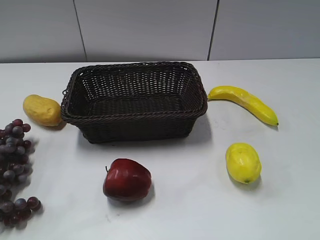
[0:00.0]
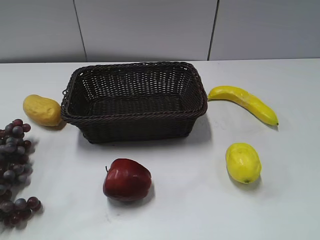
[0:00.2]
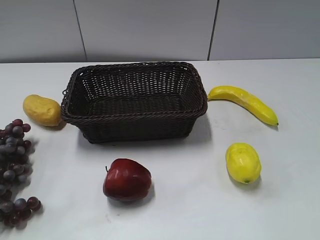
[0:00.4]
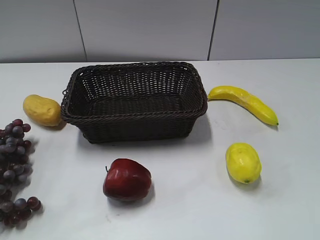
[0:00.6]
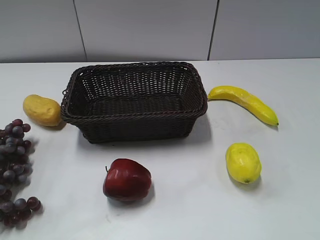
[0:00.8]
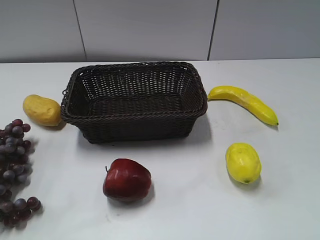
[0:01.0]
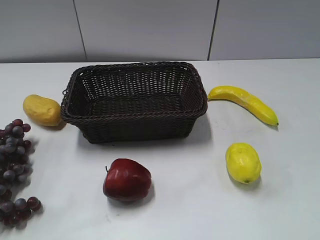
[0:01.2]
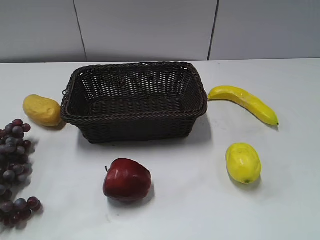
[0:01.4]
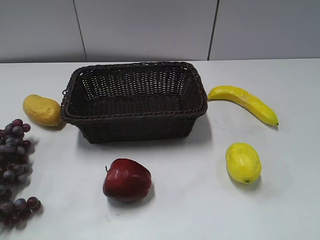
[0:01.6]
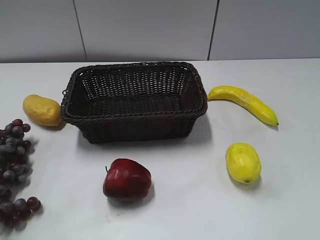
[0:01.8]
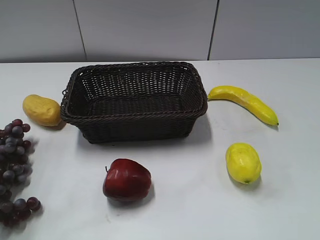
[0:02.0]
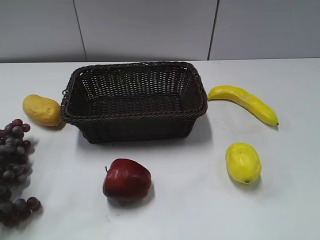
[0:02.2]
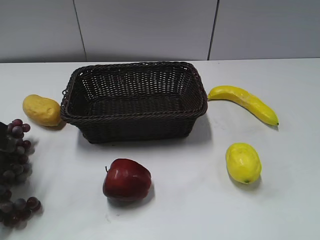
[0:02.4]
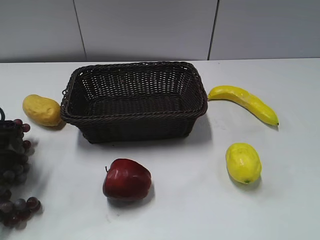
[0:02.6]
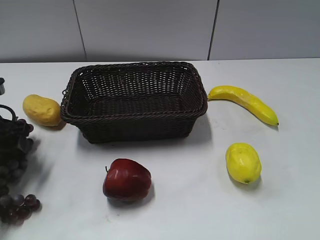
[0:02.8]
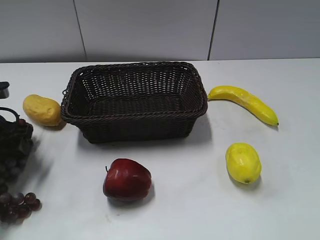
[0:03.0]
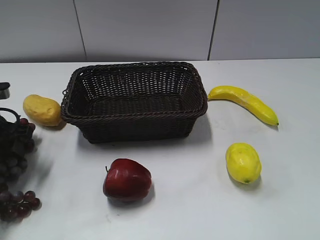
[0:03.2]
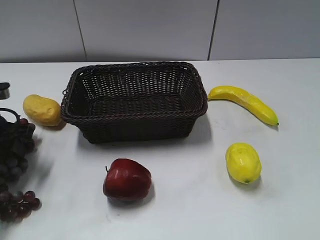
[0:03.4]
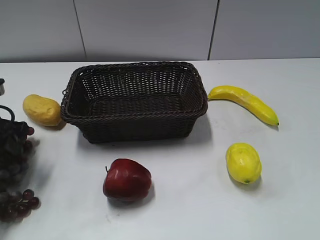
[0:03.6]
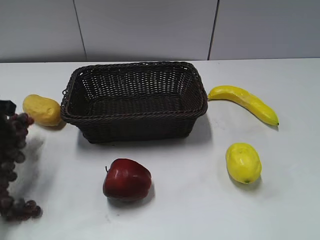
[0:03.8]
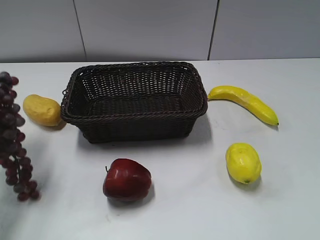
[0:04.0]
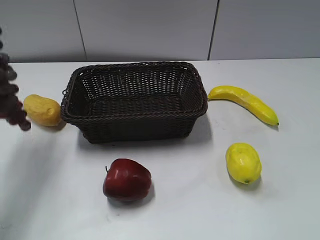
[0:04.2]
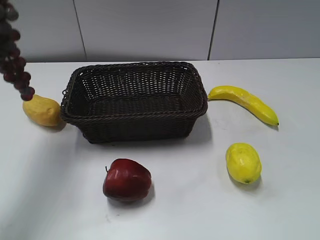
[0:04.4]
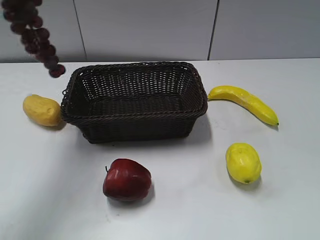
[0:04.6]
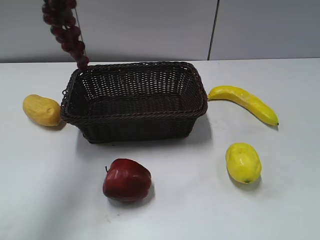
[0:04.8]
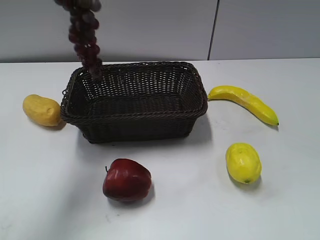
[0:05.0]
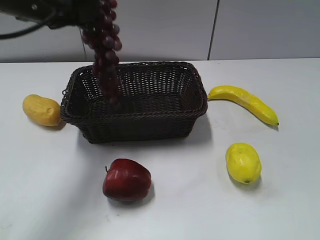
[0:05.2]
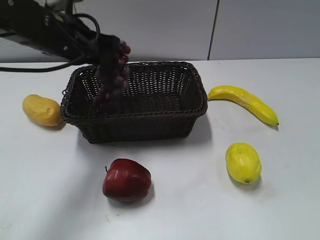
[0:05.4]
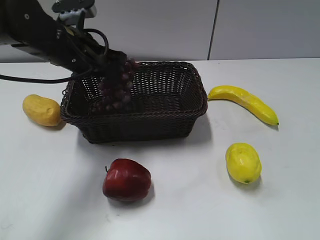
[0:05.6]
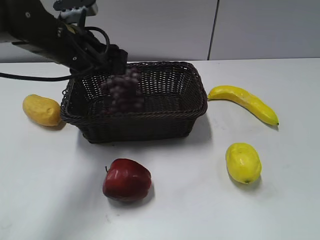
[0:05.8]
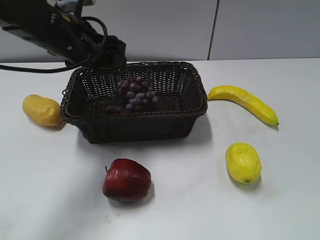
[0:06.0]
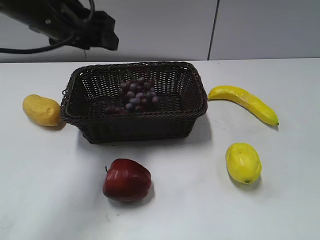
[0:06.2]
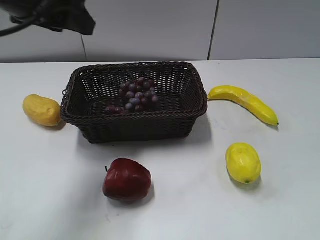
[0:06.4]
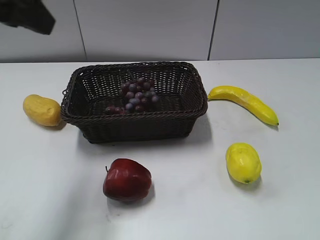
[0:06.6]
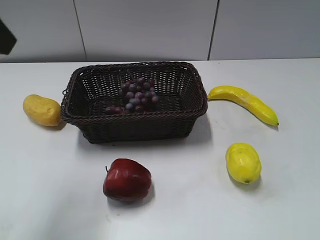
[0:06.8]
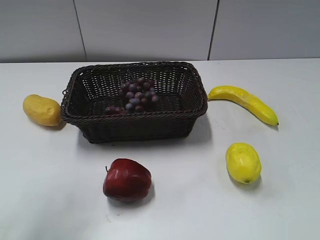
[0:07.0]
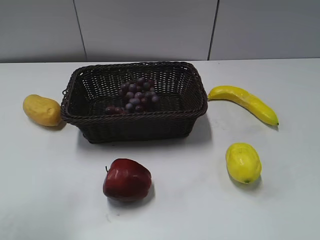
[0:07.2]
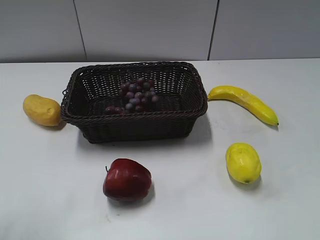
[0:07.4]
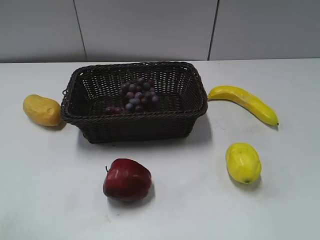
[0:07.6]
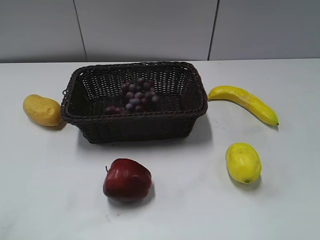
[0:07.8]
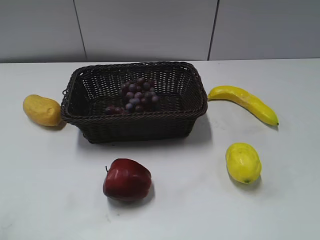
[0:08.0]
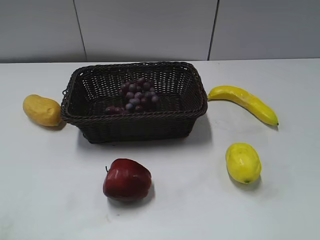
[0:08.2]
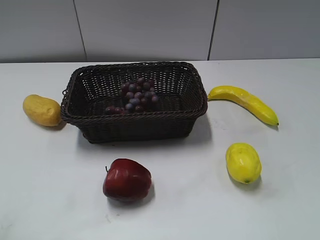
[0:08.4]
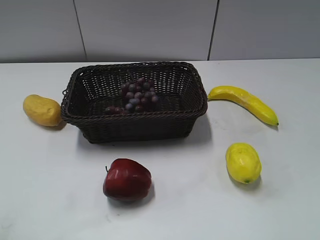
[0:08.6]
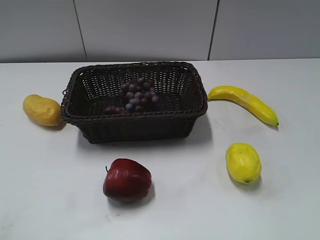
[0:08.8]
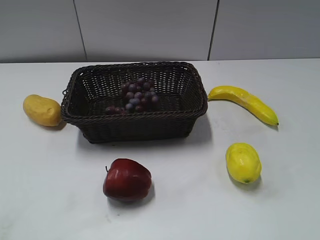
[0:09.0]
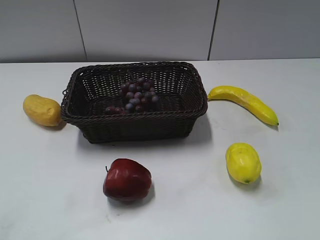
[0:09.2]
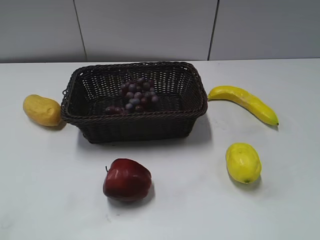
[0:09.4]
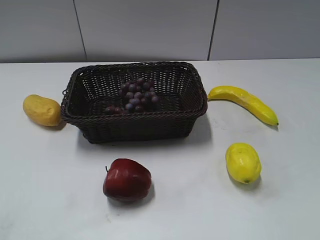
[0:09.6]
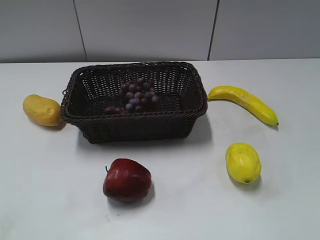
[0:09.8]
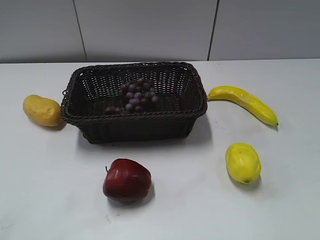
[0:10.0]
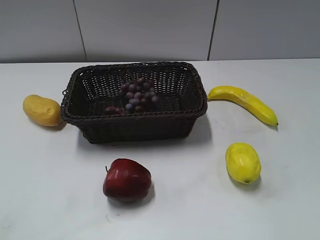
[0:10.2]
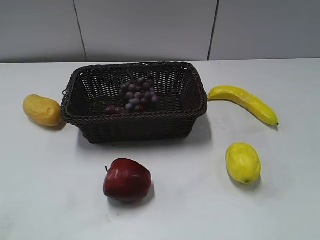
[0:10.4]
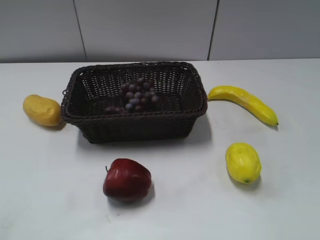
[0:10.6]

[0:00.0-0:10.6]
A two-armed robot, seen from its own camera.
Step, 0:01.6 to 0:03.6: Grasp the grape with left gripper.
Step, 0:03.8 to 0:05.8: Place the grape in the basket with left gripper.
0:01.6 to 0:03.0: The left gripper heads forward and downward, covering roughly 30 cm.
0:03.0 to 0:04.6: The left gripper is displaced upward by approximately 30 cm, and closes.
0:04.6 to 0:06.0: The left gripper shifts about 20 cm downward, to the right and forward, and opens.
0:06.0 to 0:07.6: The left gripper heads backward and to the left, covering roughly 30 cm.

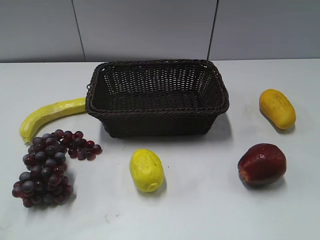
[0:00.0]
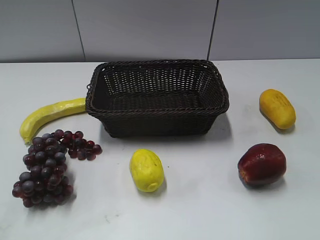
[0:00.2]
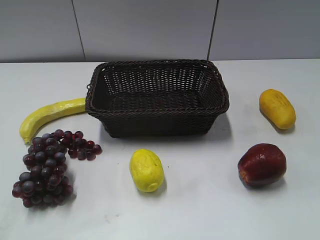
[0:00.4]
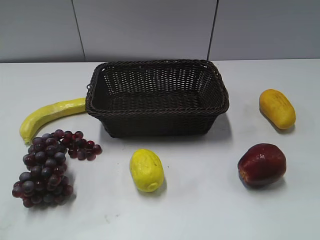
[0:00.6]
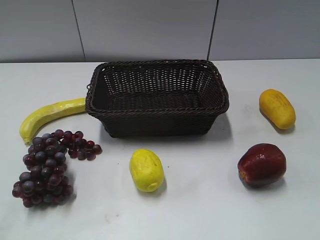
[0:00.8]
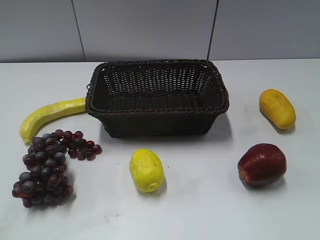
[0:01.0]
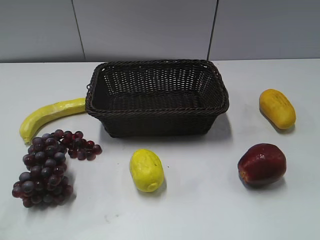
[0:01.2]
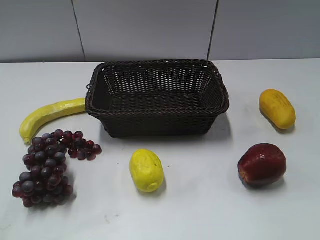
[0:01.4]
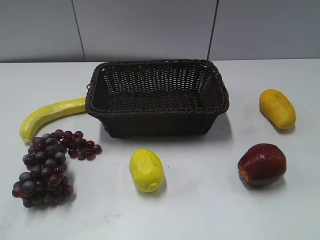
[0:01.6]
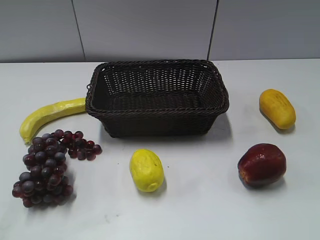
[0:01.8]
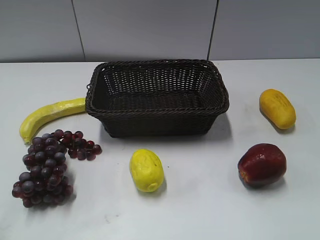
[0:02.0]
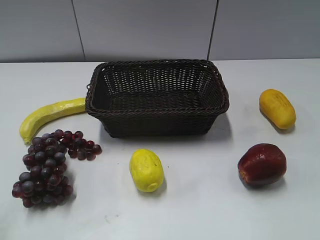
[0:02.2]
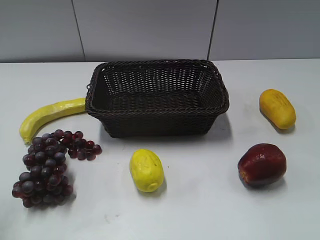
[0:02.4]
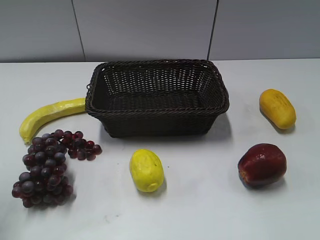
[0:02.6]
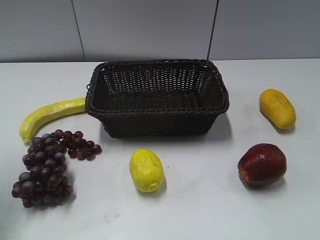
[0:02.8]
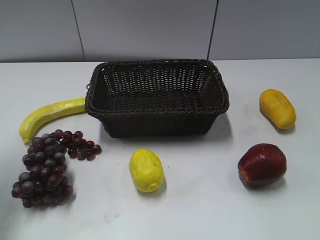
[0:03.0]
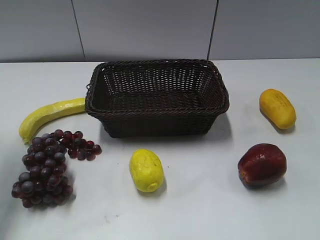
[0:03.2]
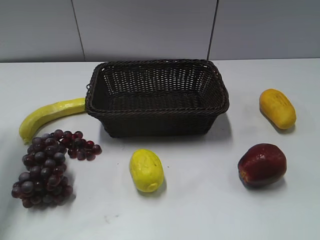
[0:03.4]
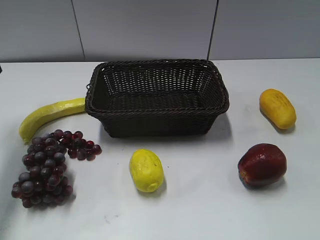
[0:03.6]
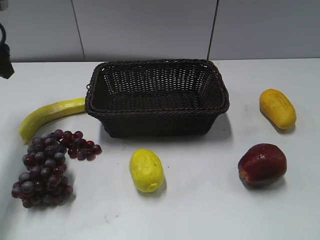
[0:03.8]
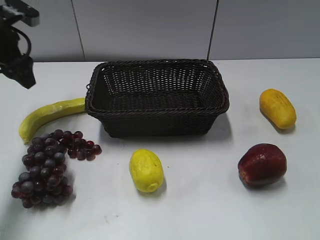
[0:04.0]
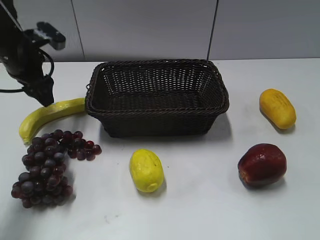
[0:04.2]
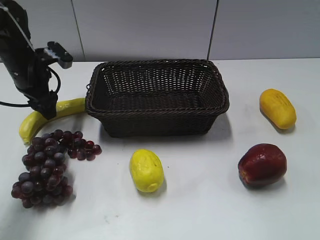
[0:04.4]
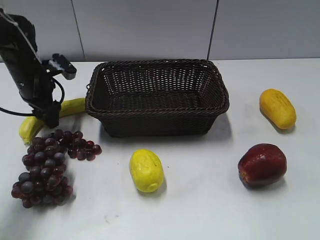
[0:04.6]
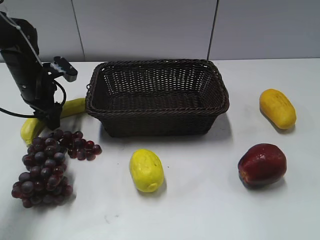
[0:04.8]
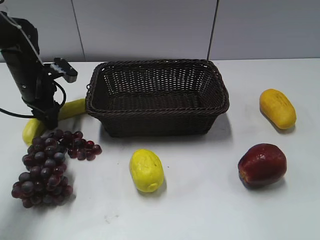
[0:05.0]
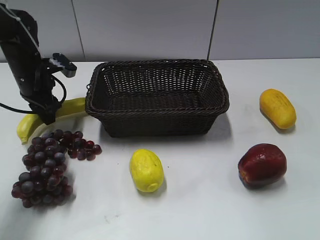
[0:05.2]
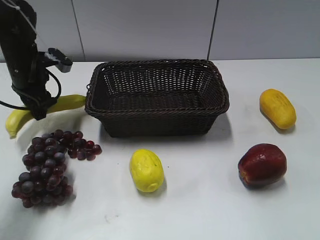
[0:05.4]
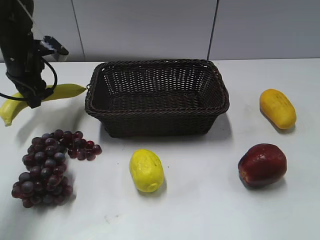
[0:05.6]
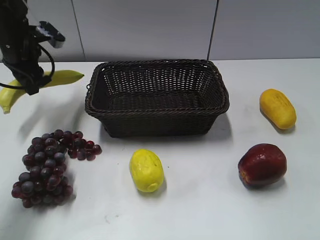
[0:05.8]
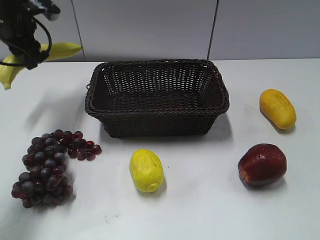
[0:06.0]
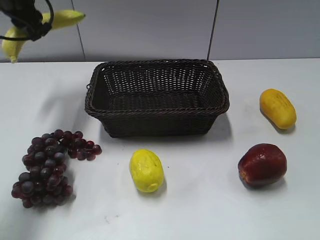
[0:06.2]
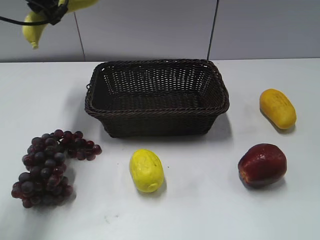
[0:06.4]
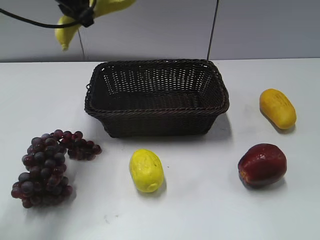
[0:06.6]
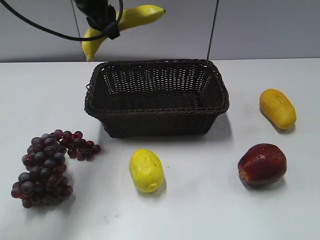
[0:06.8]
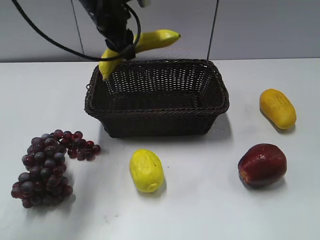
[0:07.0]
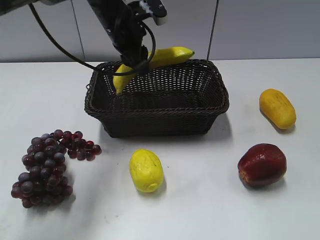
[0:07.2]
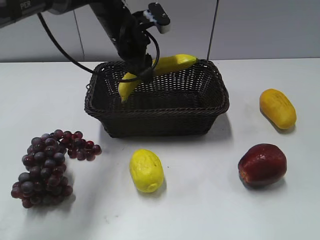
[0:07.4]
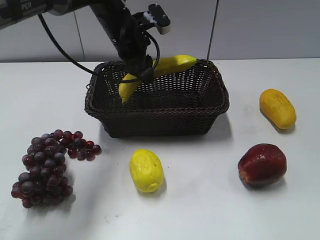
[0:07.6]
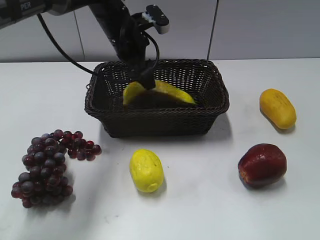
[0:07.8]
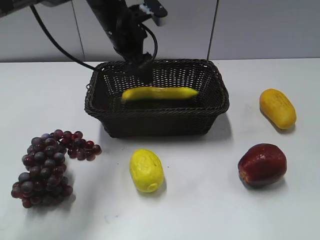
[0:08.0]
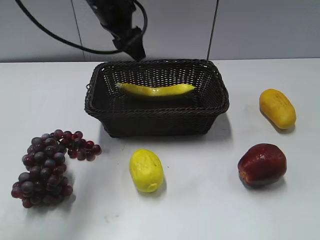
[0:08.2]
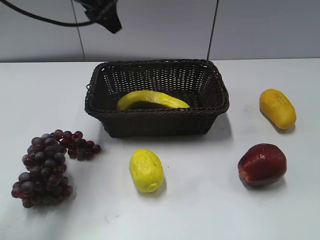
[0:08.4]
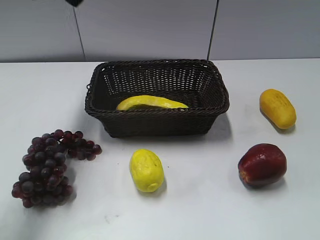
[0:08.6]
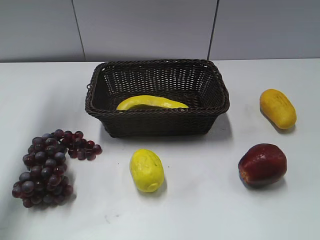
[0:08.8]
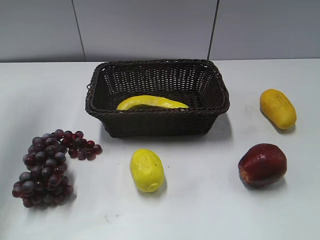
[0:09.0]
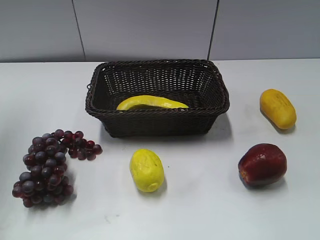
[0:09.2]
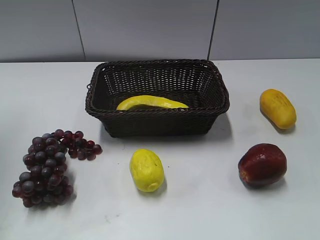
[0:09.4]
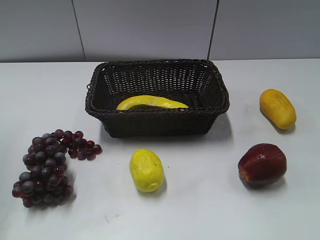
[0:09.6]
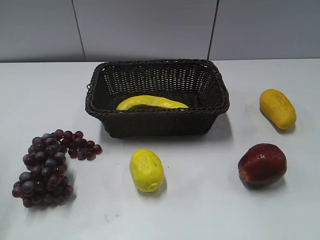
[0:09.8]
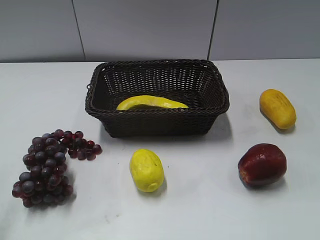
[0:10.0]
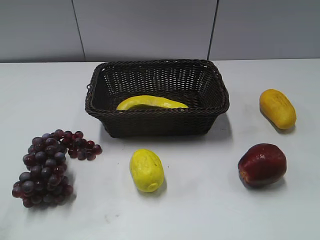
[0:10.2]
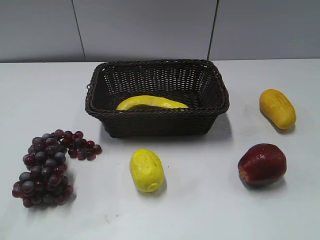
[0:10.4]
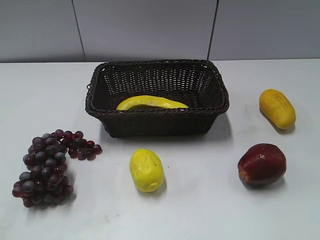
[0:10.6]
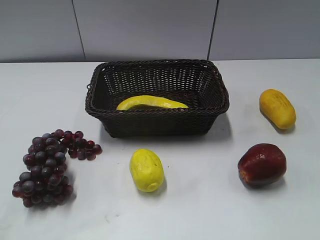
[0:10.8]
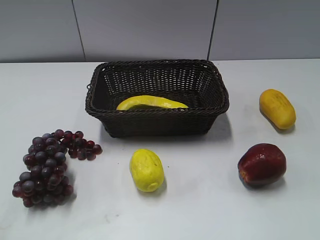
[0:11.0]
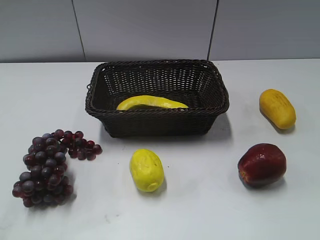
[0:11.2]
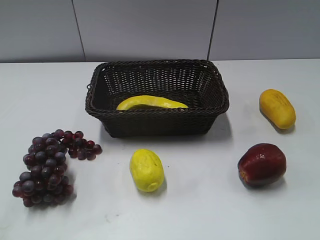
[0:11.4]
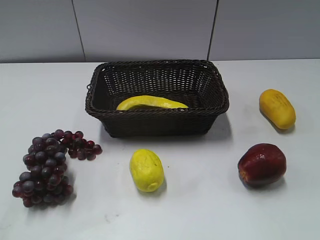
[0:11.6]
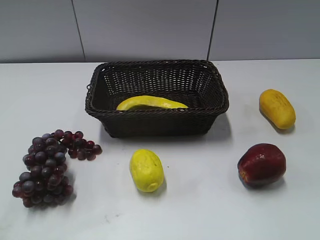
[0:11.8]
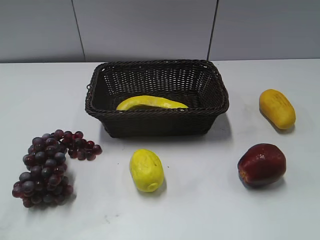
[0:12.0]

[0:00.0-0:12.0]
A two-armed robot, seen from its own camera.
Step, 0:03.6 to 0:05.2: Grasp the banana with left gripper.
Step, 0:05.4 to 0:08.0: Place the banana in the basket with left gripper.
0:01.6 to 0:03.0: The left gripper shifts about 25 cm forward.
0:03.0 to 0:04.4: The left gripper goes roughly 25 cm downward, forward and to the right.
0:04.4 to 0:06.0: The left gripper goes approximately 10 cm upward, and closes.
0:06.0 to 0:07.6: The left gripper travels to the right by some 20 cm.
0:07.6 to 0:09.0: The left gripper goes about 35 cm to the left and upward, and opens its fingers.
0:09.0 to 0:10.4: The left gripper travels backward and downward by approximately 35 cm.
